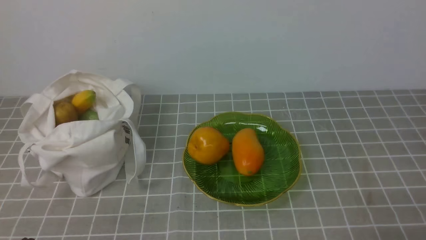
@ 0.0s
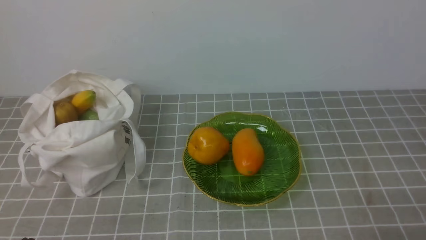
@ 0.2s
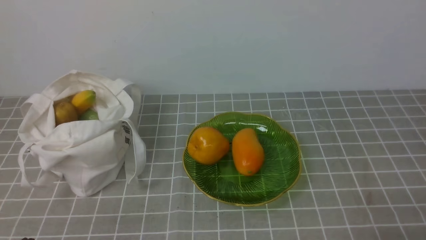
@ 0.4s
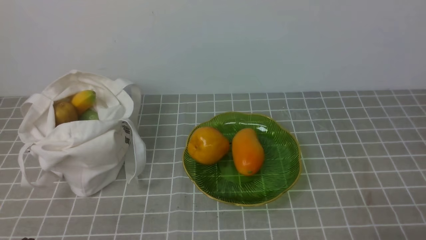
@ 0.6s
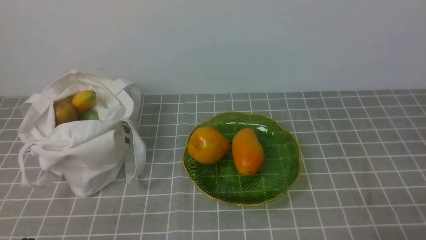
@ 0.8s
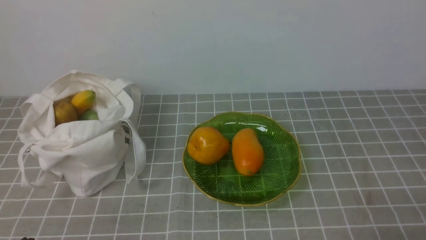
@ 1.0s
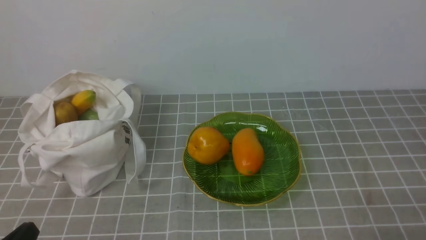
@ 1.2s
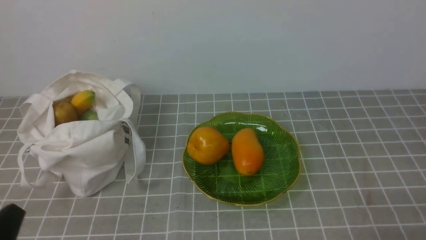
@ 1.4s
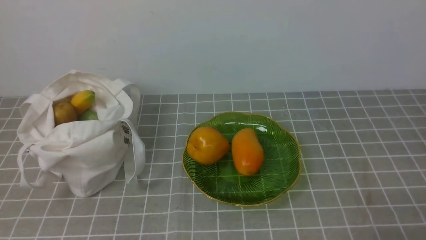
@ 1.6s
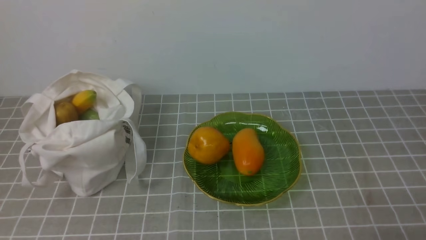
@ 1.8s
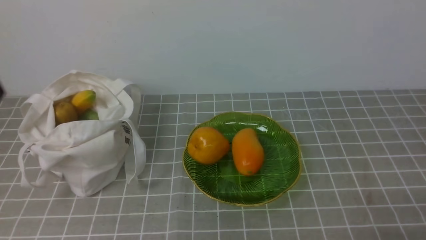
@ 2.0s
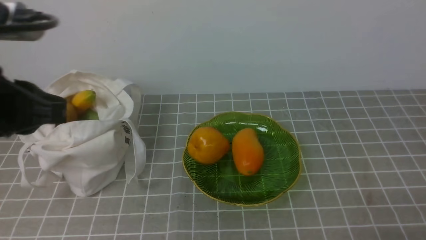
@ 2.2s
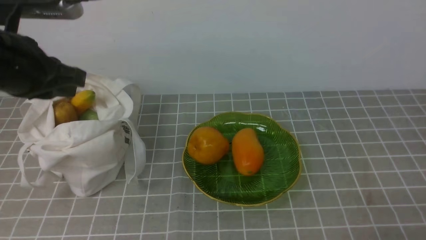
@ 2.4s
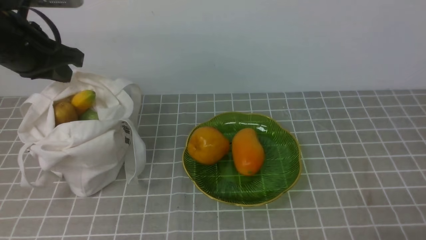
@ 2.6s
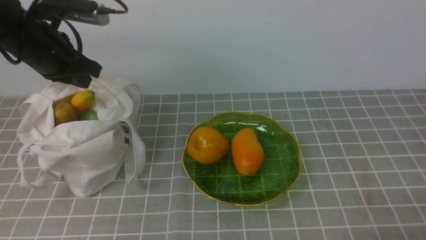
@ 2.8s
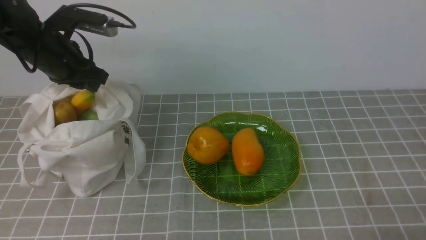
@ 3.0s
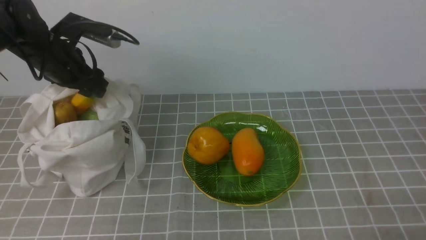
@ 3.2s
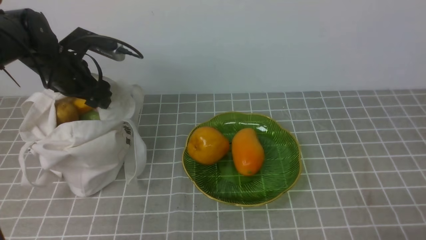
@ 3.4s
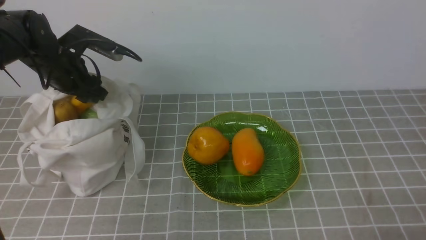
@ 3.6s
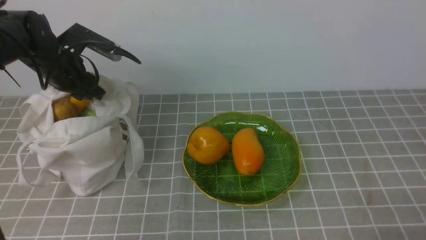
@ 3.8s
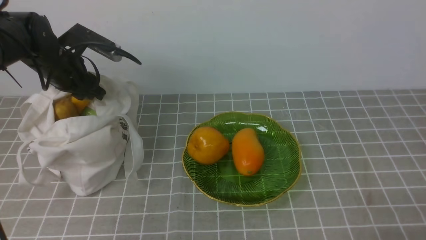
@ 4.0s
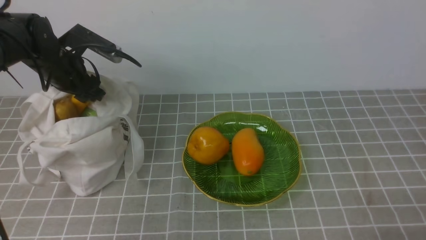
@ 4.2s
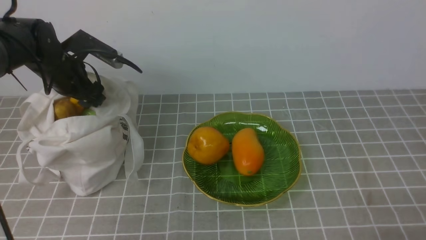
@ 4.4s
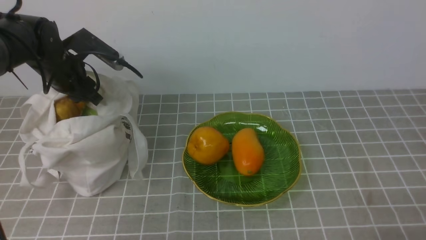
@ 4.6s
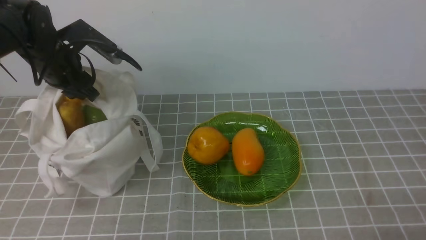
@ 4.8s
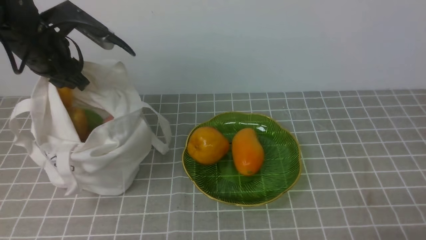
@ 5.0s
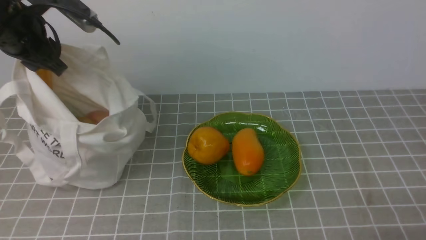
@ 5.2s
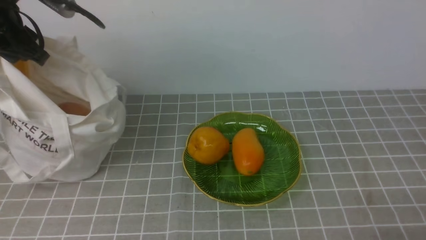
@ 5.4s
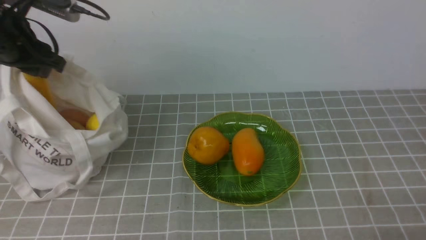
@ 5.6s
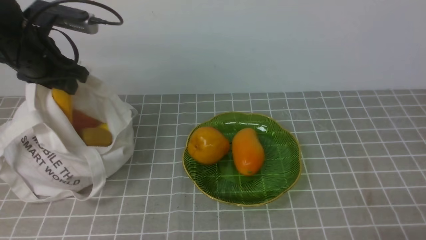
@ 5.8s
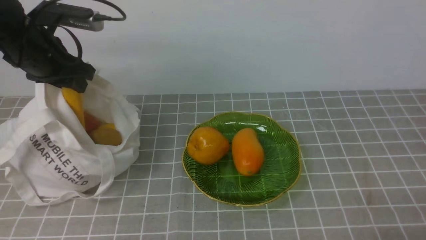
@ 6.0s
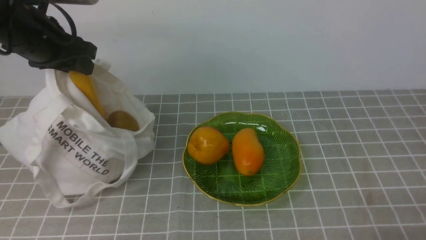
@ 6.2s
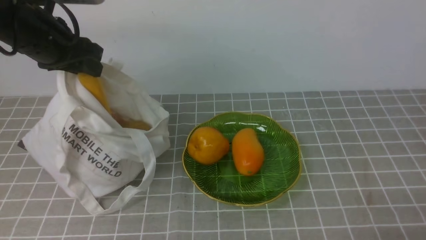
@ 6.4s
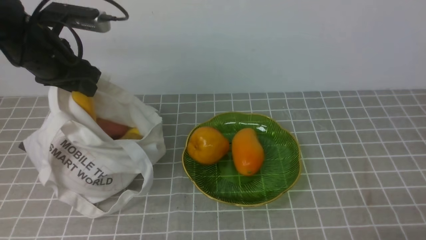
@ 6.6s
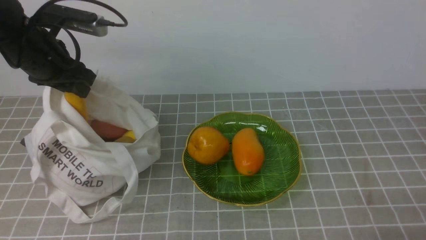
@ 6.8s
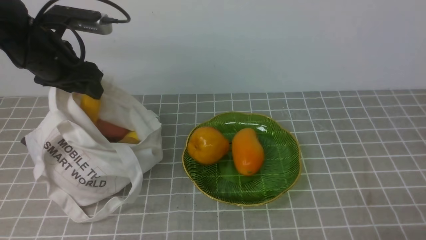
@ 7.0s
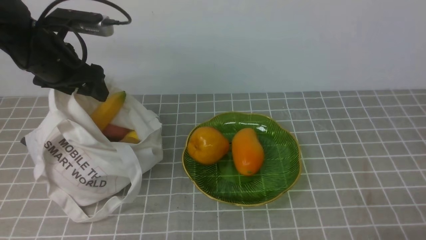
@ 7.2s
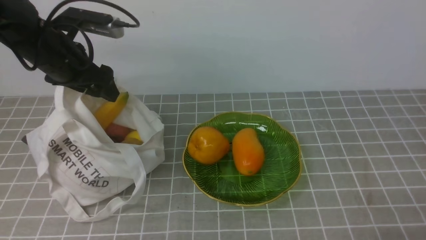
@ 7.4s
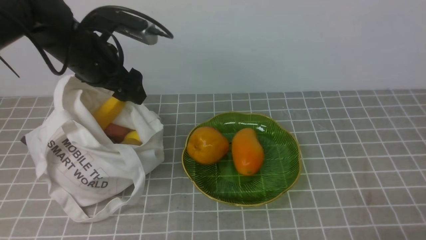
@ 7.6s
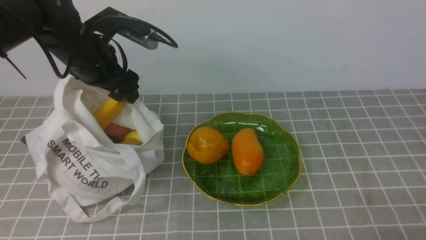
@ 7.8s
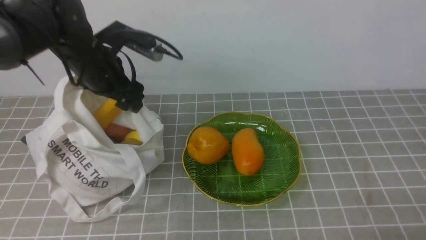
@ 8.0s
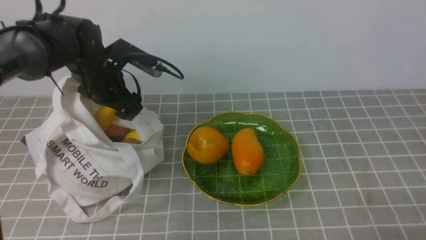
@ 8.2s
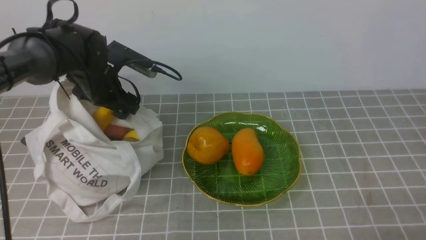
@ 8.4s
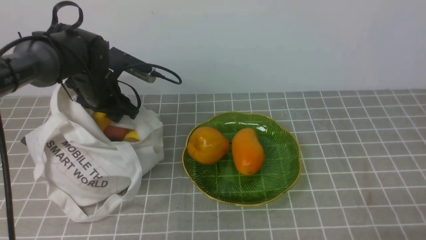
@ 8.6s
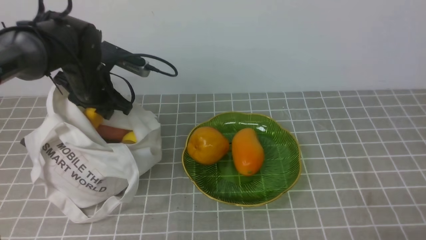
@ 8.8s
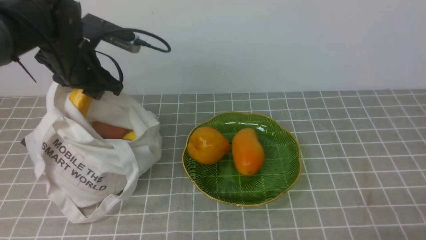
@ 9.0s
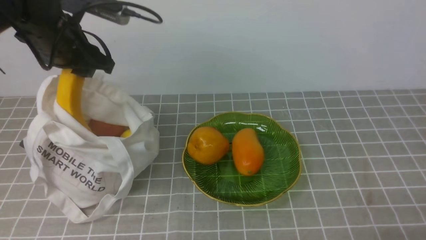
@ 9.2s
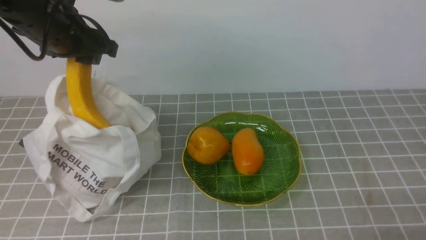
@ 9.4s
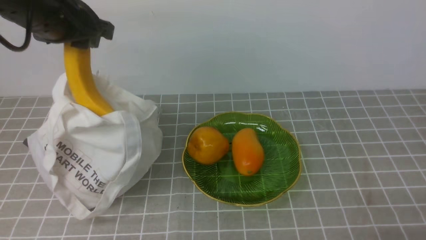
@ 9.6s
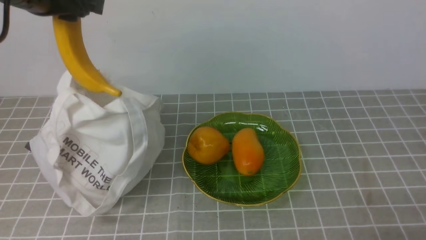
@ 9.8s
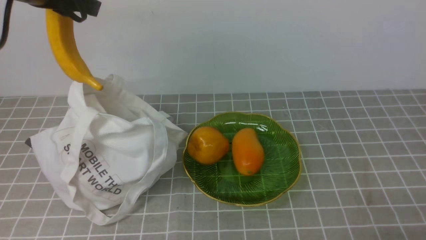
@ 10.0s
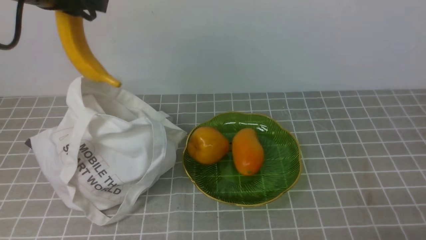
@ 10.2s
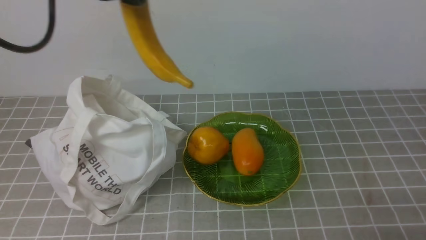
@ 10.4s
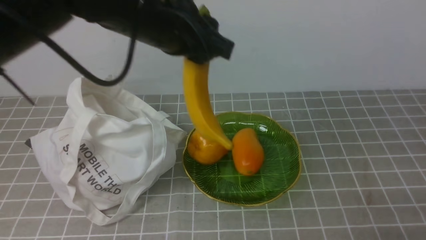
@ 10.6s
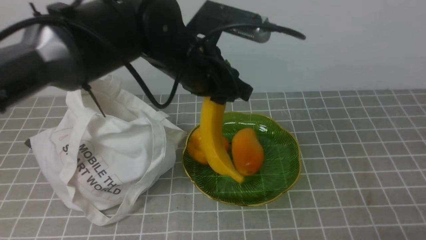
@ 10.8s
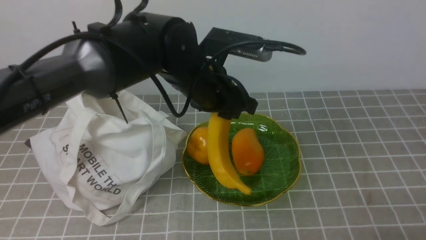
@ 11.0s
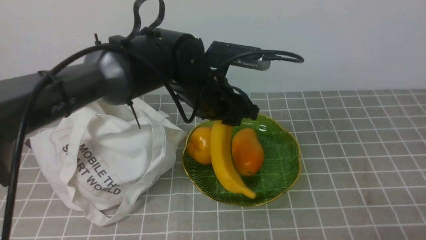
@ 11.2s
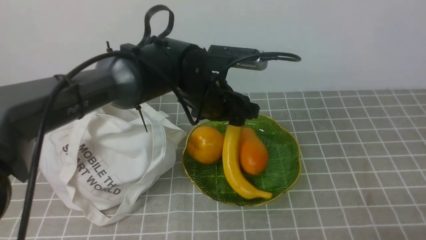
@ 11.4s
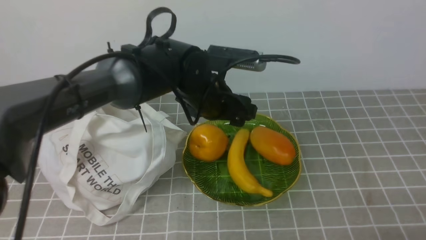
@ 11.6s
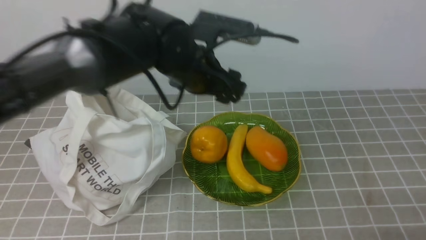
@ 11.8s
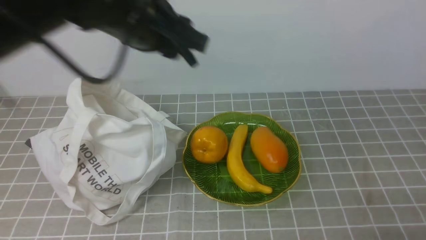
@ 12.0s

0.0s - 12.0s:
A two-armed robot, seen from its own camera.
Step, 0.0s - 9.0s: use the left arm to grab a banana from the bag.
Step, 9.2s - 11.6s: use the left arm to put the banana into the empty plate on the right.
1.6s - 3.0s: The left gripper heads forward, covering approximately 35 cm, and opens up.
3.0s - 4.4s: The left gripper changes place by roughly 5 cm.
4.4s - 6.0s: The left gripper goes approximately 10 cm upward and backward.
6.0s - 7.6s: The left gripper travels to the right by approximately 5 cm, and opens up.
7.6s - 9.0s: The left gripper travels downward and back again, approximately 10 cm each way, and closes up.
9.0s - 10.4s: The left gripper travels upward, to the right and backward by some 15 cm.
10.4s - 12.0s: The left gripper travels downward and back again, approximately 15 cm each way, and opens, then closes once more.

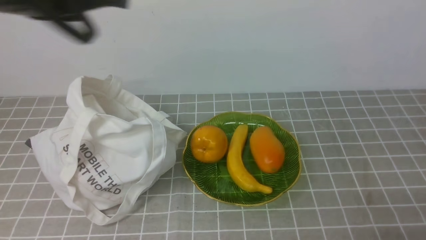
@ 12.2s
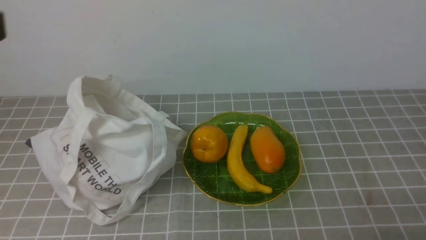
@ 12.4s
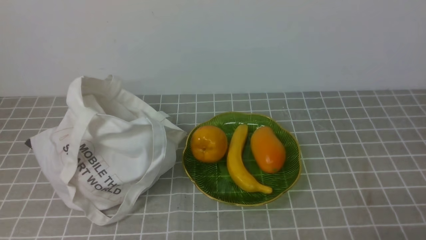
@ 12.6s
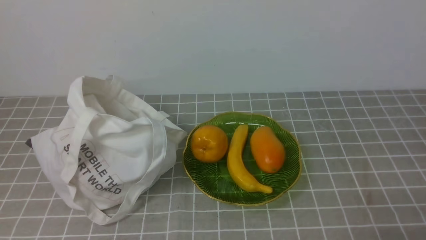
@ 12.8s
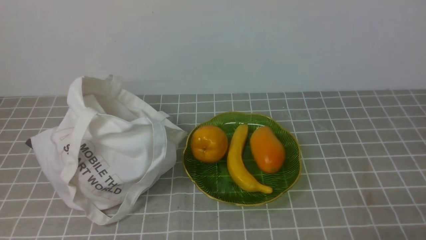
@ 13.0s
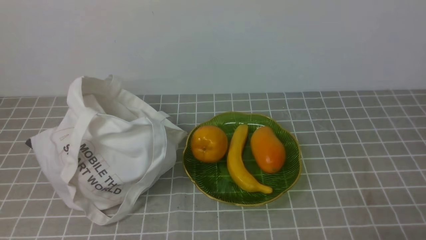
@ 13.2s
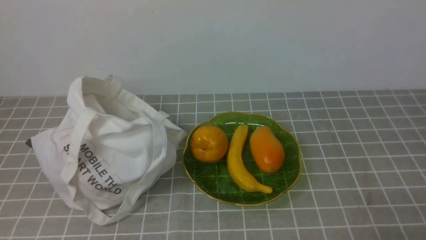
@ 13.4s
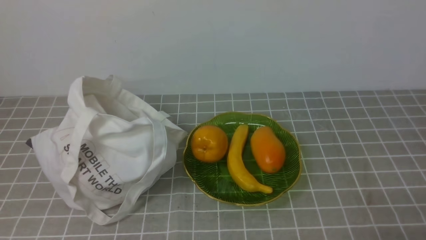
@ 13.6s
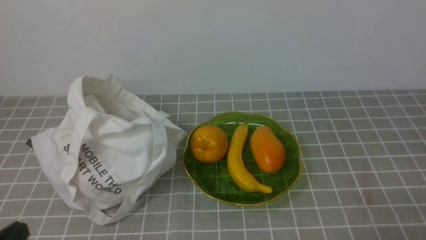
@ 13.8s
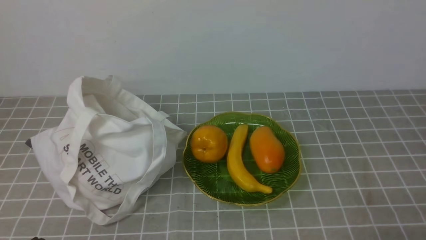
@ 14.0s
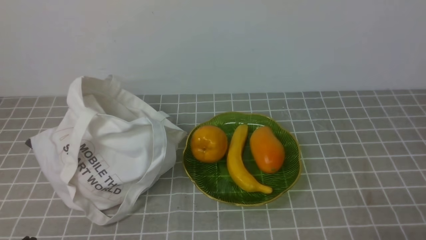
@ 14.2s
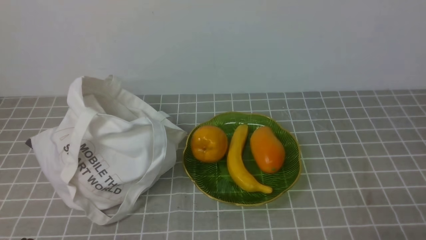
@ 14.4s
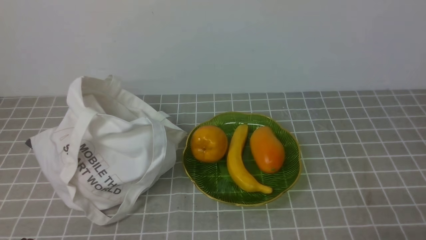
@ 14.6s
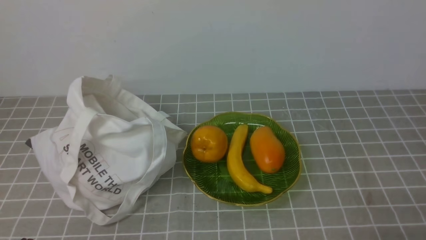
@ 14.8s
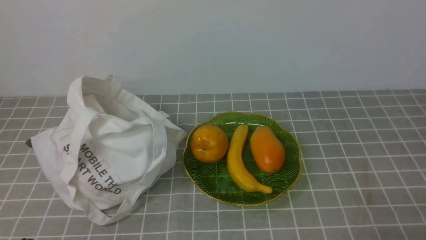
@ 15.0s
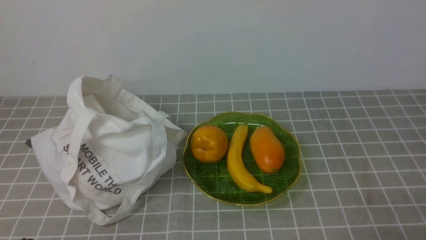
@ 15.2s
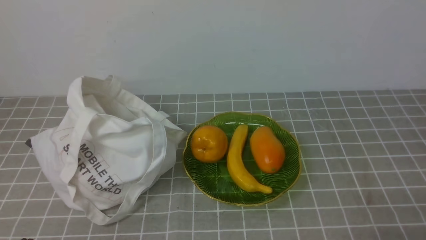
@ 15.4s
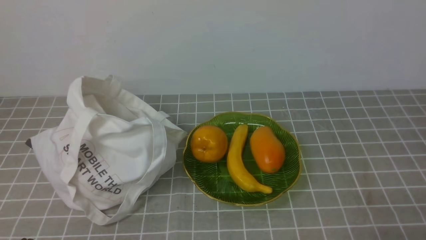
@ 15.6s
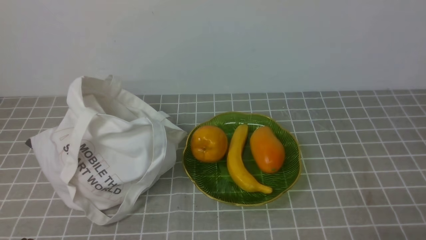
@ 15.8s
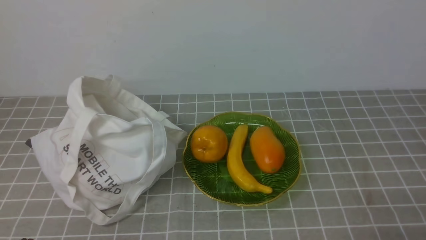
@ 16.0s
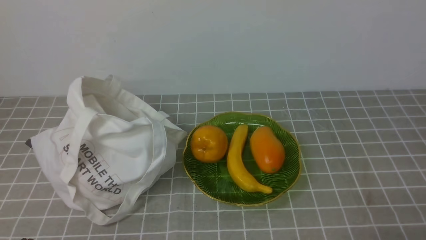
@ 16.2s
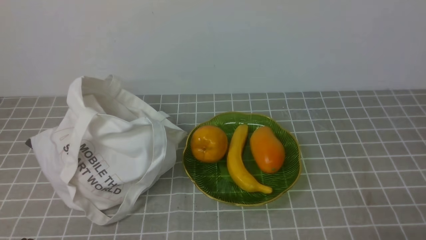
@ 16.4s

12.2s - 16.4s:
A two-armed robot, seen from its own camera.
12.2s - 13.6s: The left gripper heads downward, backward and to the left, covering some 25 cm.
15.0s - 16.4s: Both grippers stay put.
